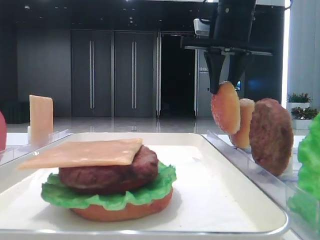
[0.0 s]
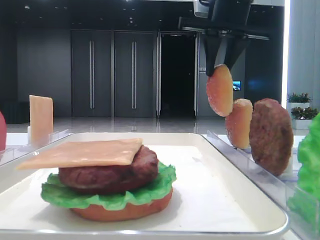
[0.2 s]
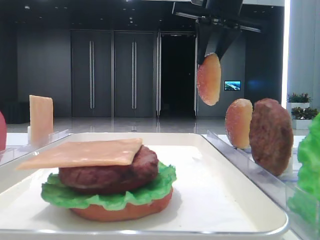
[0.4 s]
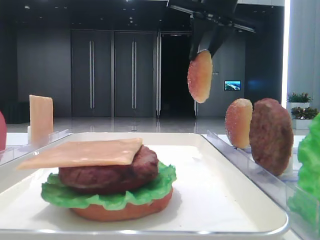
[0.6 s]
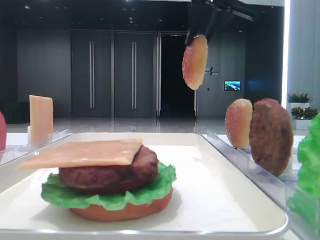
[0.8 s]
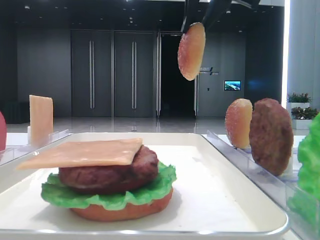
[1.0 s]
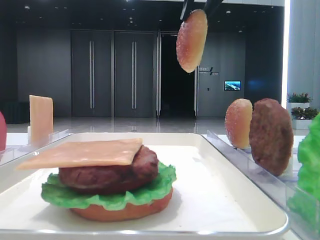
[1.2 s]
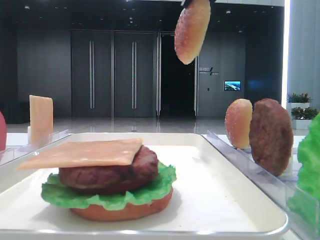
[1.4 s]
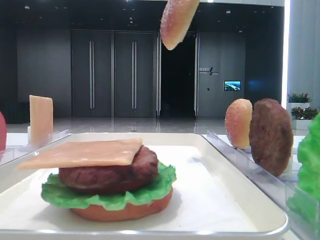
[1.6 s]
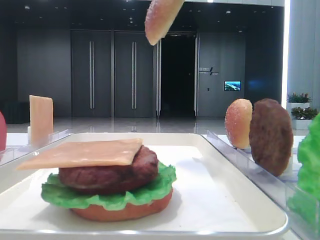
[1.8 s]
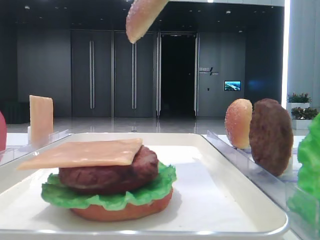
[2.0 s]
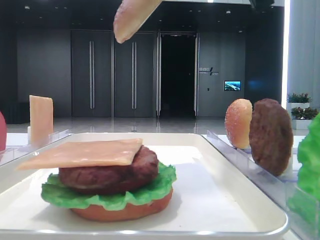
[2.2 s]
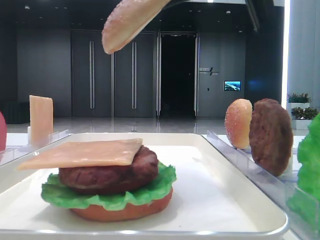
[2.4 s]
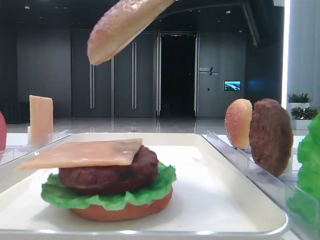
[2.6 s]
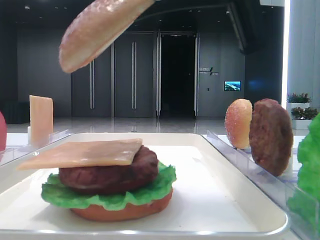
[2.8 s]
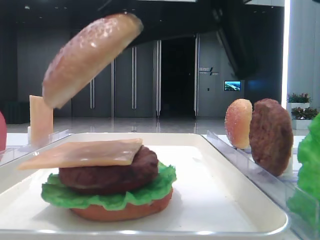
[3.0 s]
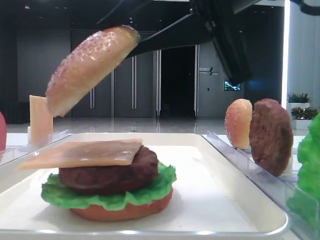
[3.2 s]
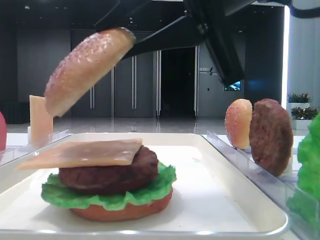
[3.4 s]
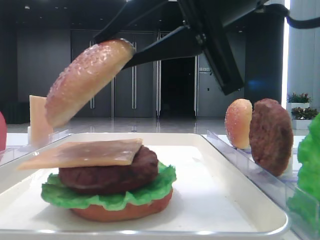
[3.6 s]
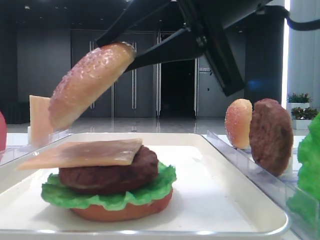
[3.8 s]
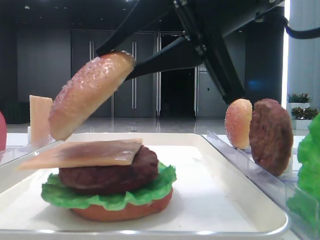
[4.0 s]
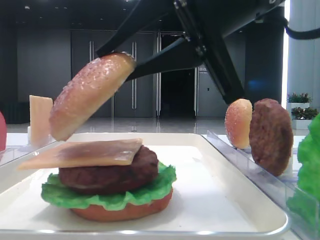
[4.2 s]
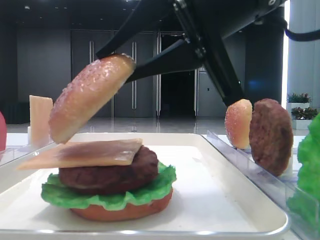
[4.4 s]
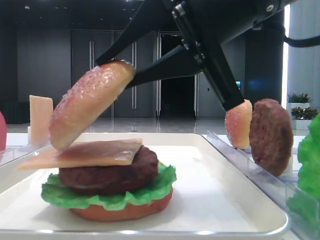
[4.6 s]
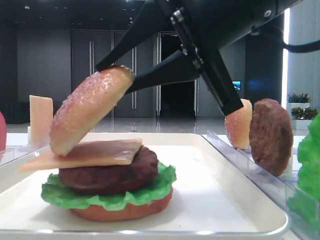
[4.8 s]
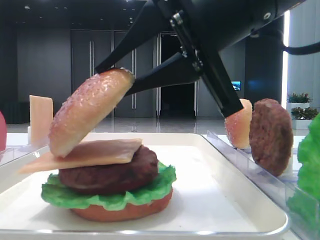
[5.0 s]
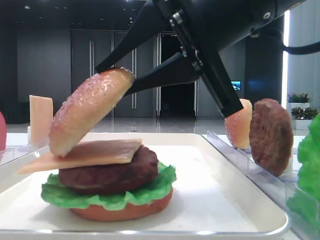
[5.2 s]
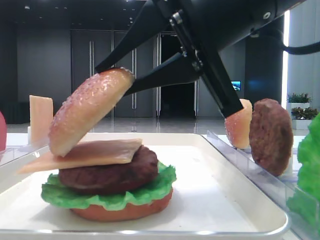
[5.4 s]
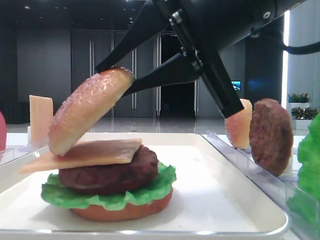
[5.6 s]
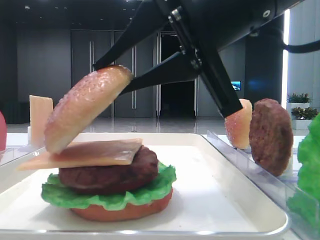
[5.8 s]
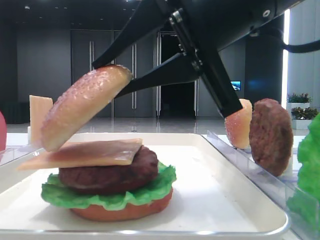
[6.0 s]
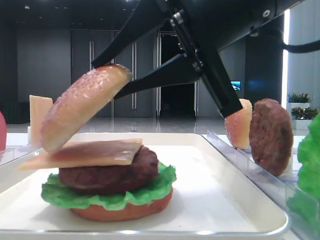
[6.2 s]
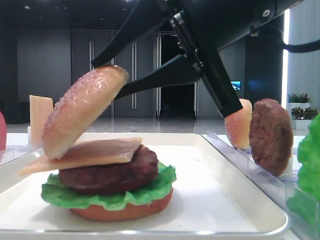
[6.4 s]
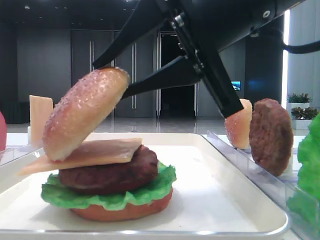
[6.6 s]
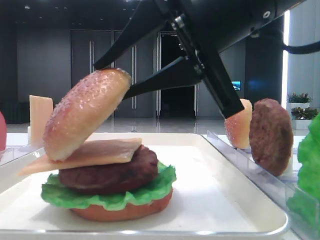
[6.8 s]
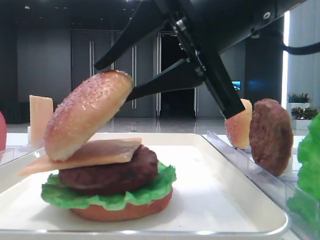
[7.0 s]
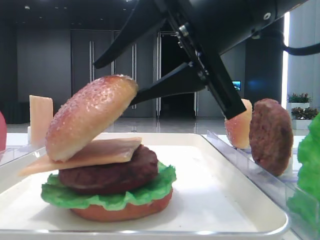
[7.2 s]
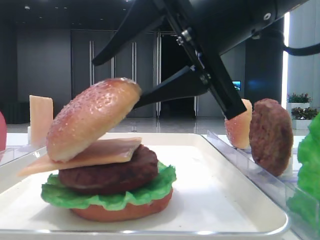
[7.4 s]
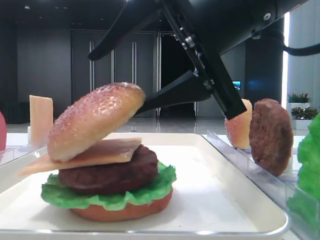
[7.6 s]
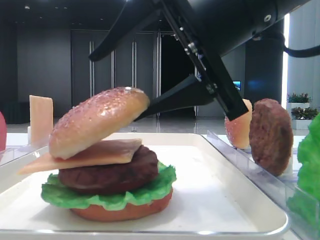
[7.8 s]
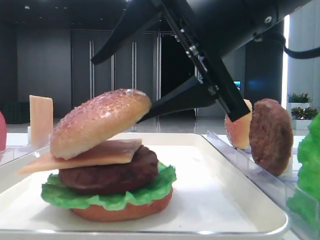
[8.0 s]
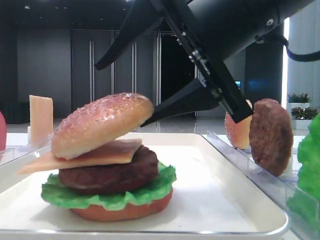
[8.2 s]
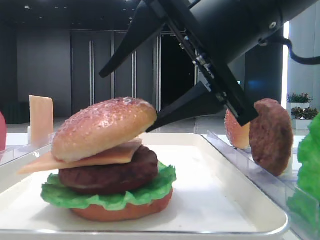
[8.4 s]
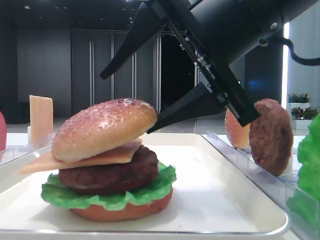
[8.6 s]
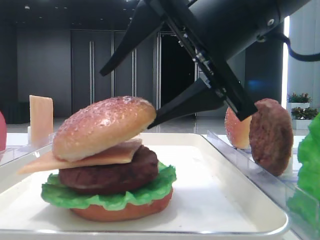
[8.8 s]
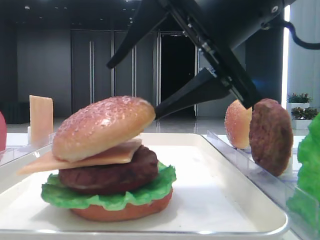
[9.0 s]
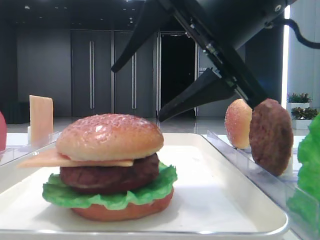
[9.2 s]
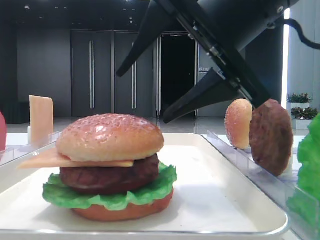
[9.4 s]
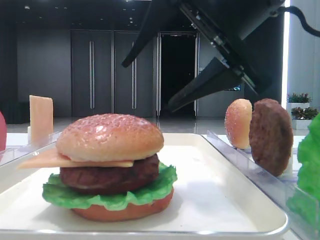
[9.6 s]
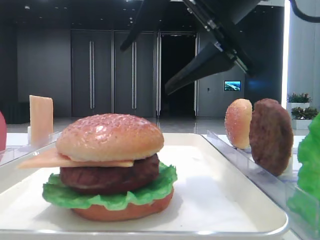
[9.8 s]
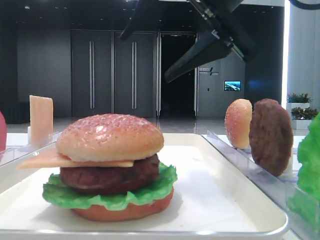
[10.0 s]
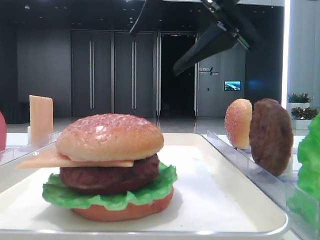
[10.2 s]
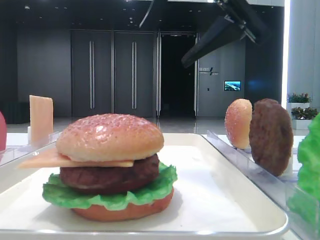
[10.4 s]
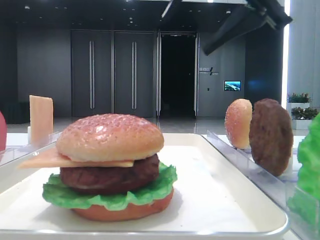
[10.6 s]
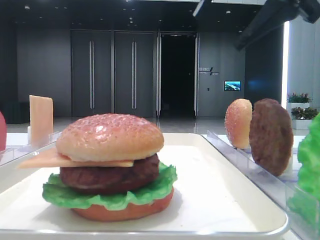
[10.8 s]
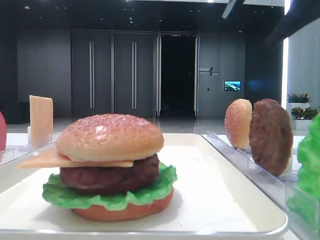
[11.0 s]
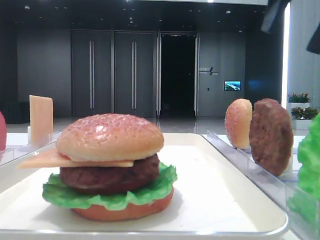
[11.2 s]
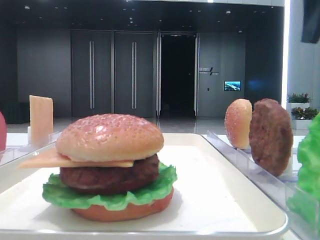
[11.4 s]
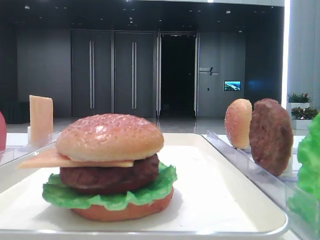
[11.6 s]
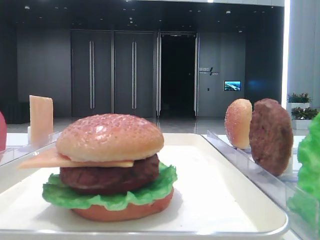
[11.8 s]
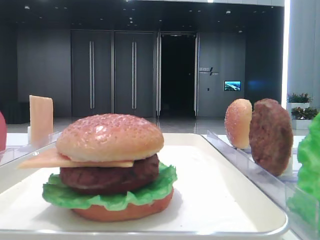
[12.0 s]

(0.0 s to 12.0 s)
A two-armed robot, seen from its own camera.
Step, 0.0 s - 9.0 s: Place the top bread slice on the cheese with the right hand.
0.0 s - 1.6 s: The right gripper shifts about 15 cm backward and upward.
1.6 s - 3.0 s: The right gripper goes about 15 cm downward and backward.
3.0 s - 4.4 s: There are only small adjustments of the grippers.
4.4 s - 6.0 s: Both grippers stay put.
6.0 s - 7.6 s: The right gripper opens.
7.6 s - 9.0 s: The grippers move only a little.
9.0 s - 10.4 s: The right gripper is displaced upward by roughly 5 cm.
10.4 s - 12.0 s: The right gripper shifts roughly 20 cm to the right.
